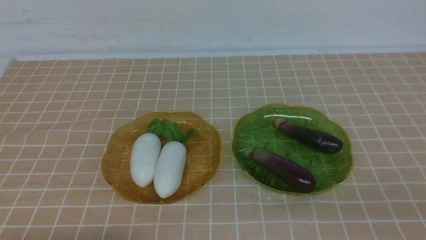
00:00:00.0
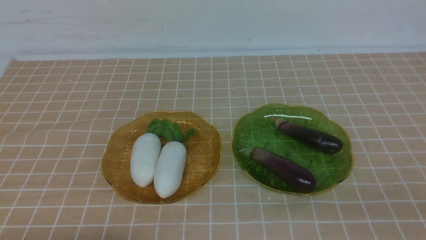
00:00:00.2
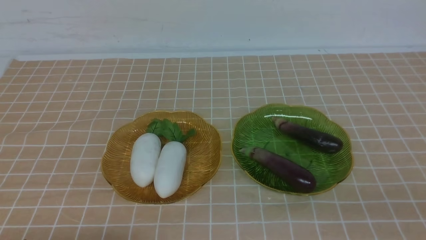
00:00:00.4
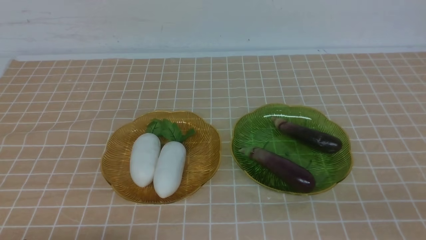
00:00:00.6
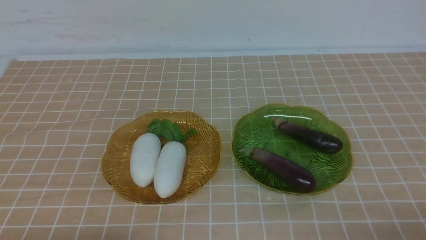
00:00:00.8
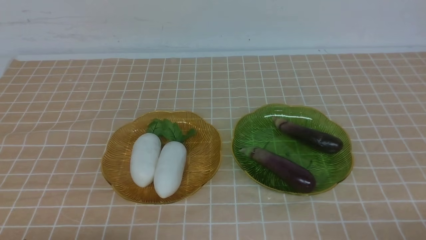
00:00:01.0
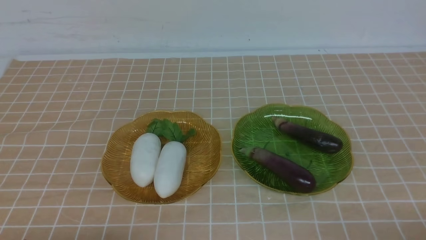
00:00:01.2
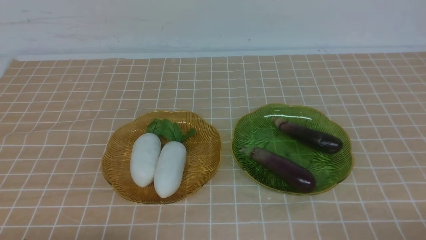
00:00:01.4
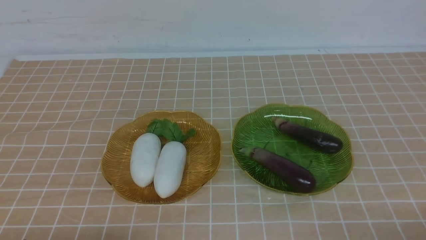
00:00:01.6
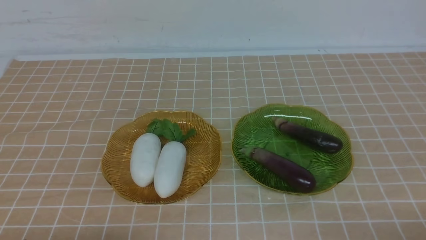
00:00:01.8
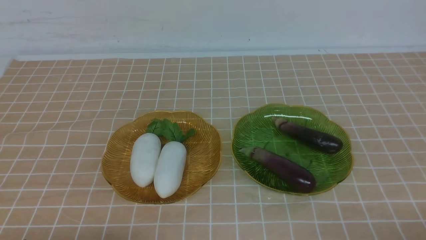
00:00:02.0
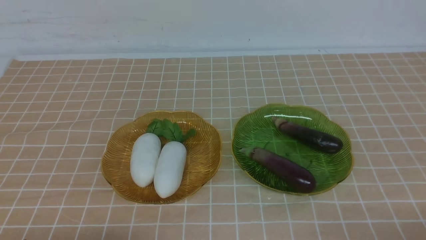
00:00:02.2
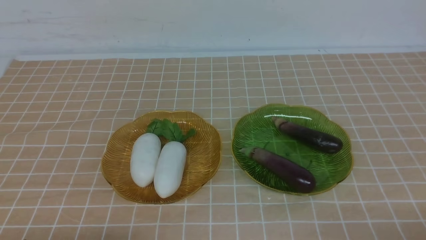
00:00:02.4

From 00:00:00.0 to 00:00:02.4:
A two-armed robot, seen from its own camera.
From 00:00:01.2 to 00:00:02.4: Neither gripper changes place.
